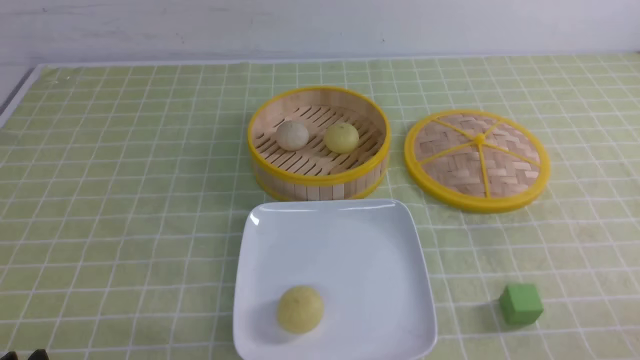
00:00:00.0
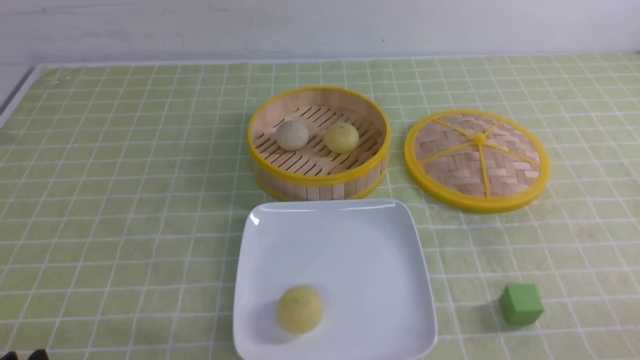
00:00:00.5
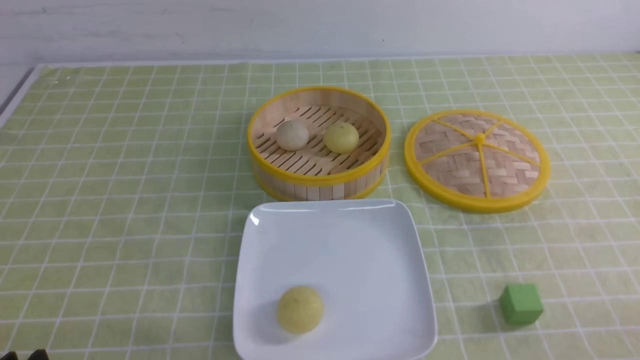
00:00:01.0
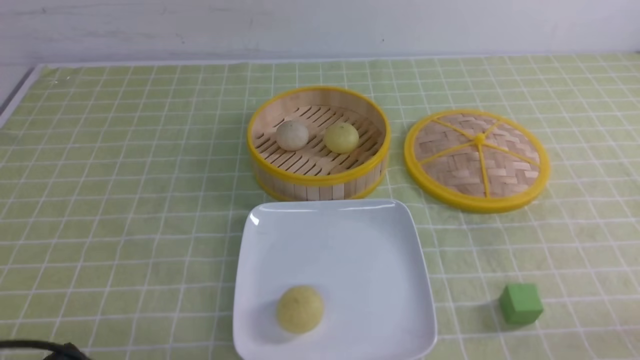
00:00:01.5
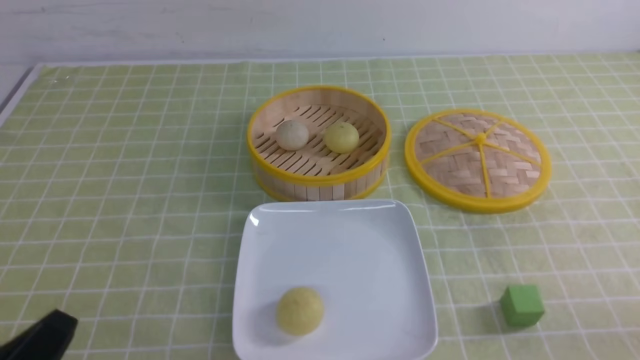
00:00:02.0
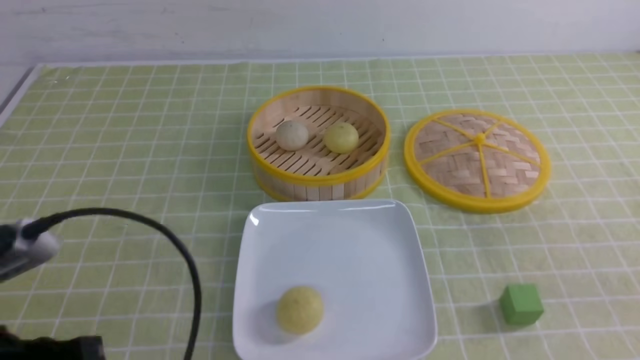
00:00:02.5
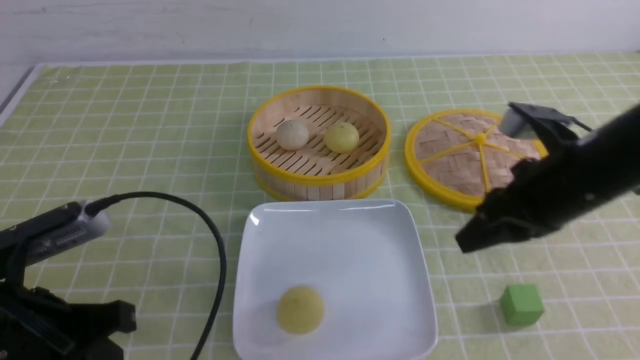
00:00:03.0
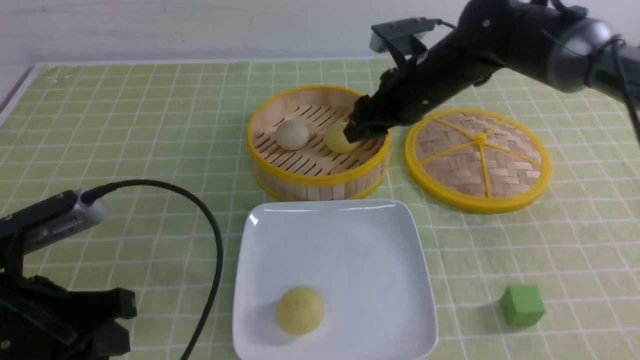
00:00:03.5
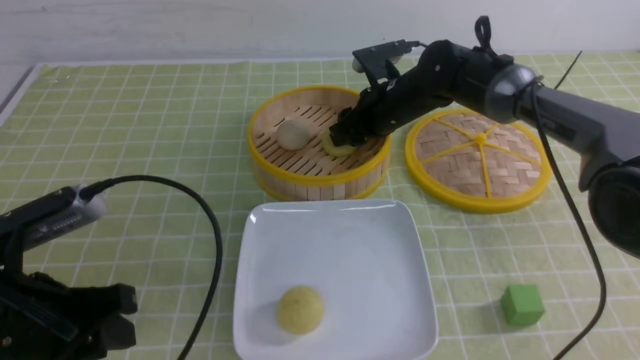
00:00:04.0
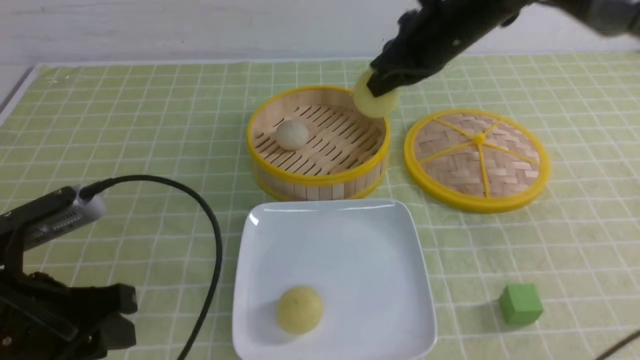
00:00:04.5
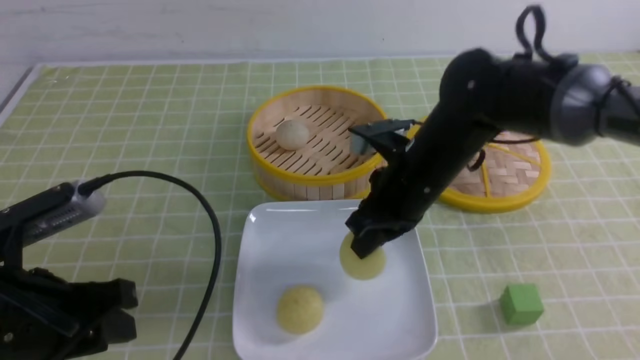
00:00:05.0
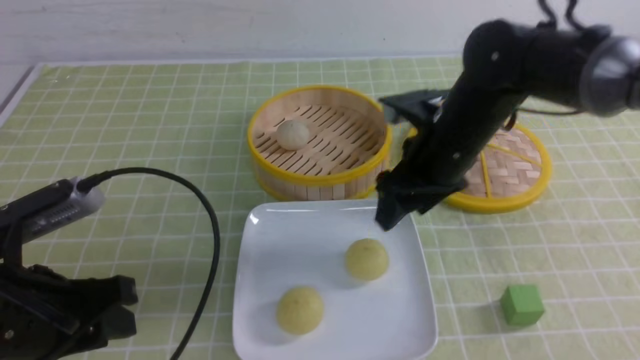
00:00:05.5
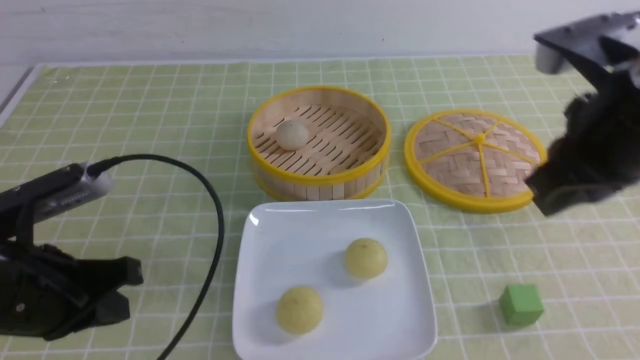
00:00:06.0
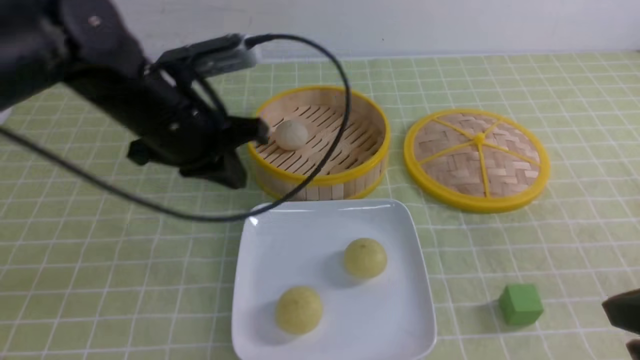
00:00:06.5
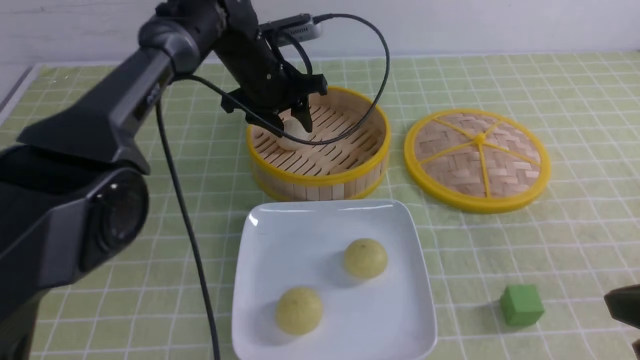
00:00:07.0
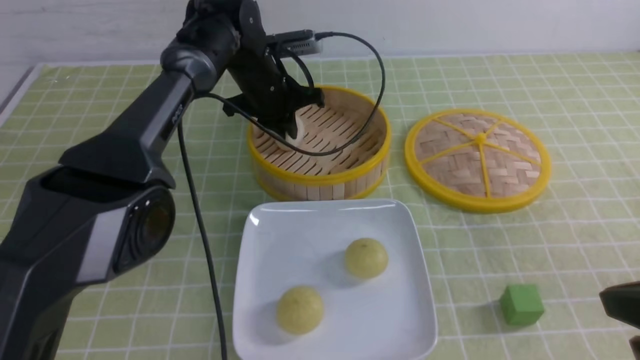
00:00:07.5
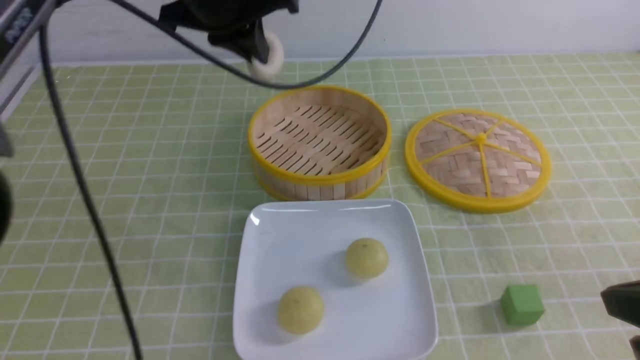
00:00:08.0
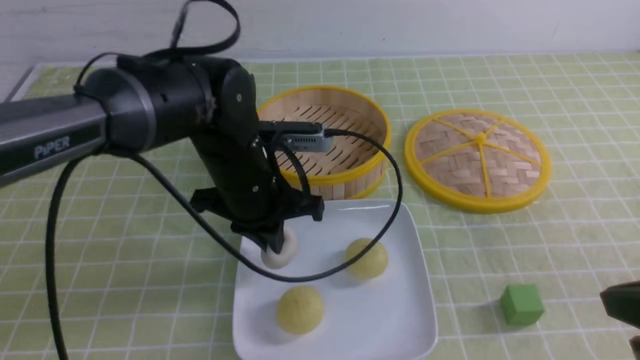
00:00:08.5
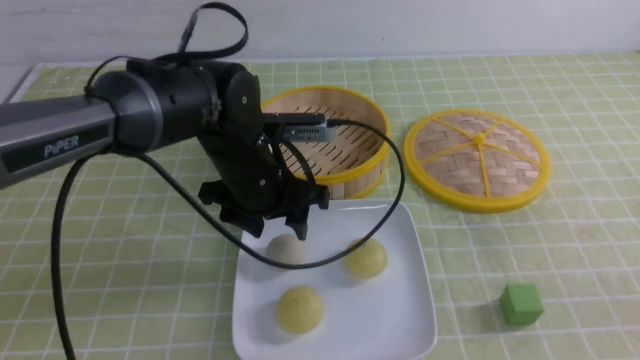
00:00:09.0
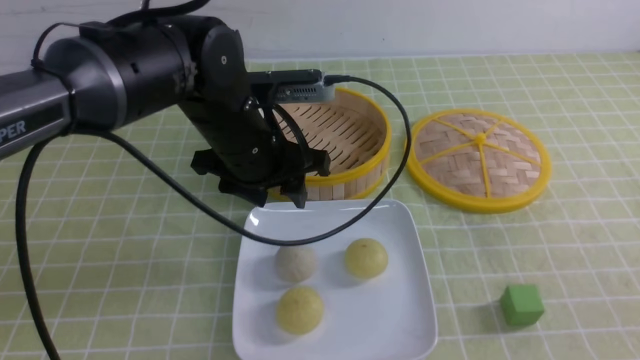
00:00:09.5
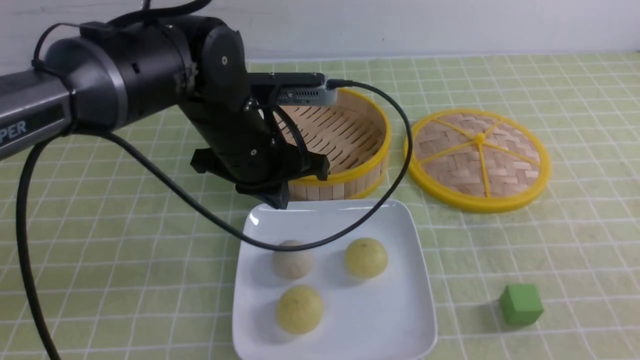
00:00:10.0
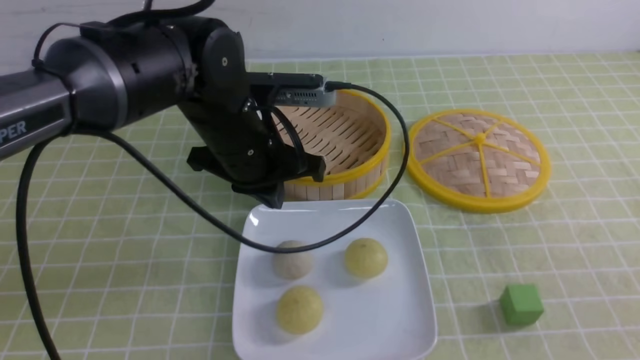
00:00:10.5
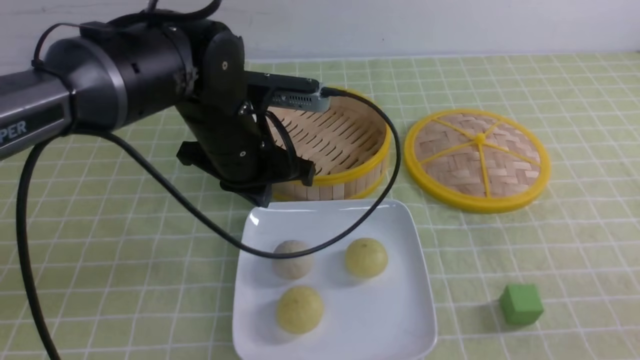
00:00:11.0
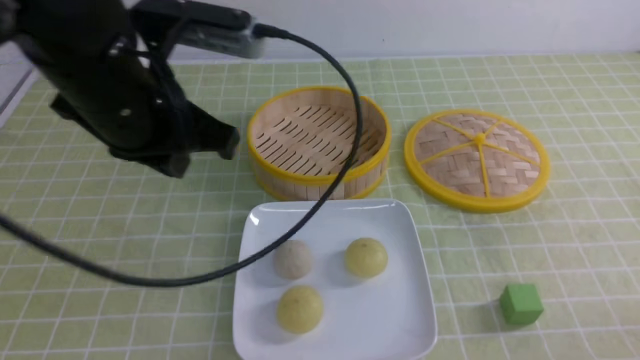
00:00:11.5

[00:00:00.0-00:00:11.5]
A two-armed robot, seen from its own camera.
Step, 00:00:00.0 to 00:00:04.0: use the right arm to grab the steamed stuffed bun that is closest to it.
Step, 00:00:04.5 to 00:00:05.0: use the right arm to put the steamed stuffed bun into the plate.
Step, 00:00:05.5 to 00:00:07.5: use the left arm to grab the steamed stuffed bun that is closest to it.
Step, 00:00:08.0 to 00:00:08.5: use the left arm to put the steamed stuffed bun into the plate.
00:00:00.0 to 00:00:02.0: The left gripper heads upward, covering some 5 cm.
00:00:02.0 to 00:00:04.0: The left gripper travels forward by some 10 cm; the right gripper heads forward and to the left, covering roughly 50 cm, and closes, then reopens.
00:00:04.0 to 00:00:06.0: The left gripper closes up, while the right gripper is displaced backward, upward and to the right by roughly 30 cm, and closes.
00:00:06.0 to 00:00:07.5: The right gripper goes approximately 15 cm backward, downward and to the right; the left gripper shifts about 35 cm forward and to the right, and opens, then closes again.
00:00:07.5 to 00:00:09.5: The left gripper is displaced backward by roughly 20 cm, and opens up. Meanwhile the right gripper goes approximately 10 cm backward and to the right.
00:00:09.5 to 00:00:11.5: The right gripper is displaced downward by roughly 10 cm. Meanwhile the left gripper heads upward, backward and to the left, covering approximately 15 cm, and closes.

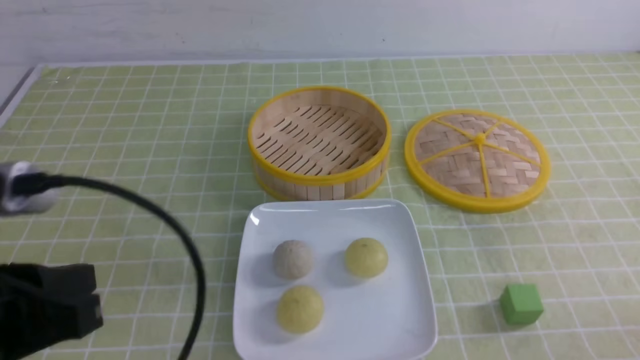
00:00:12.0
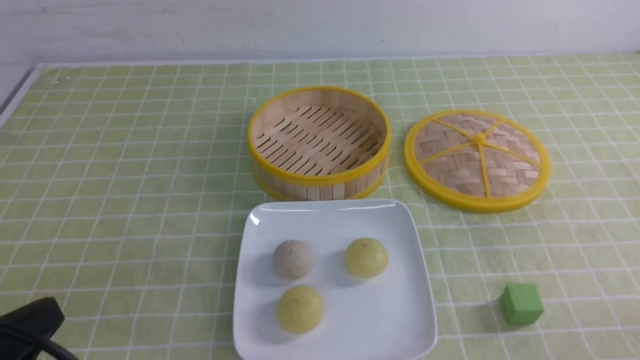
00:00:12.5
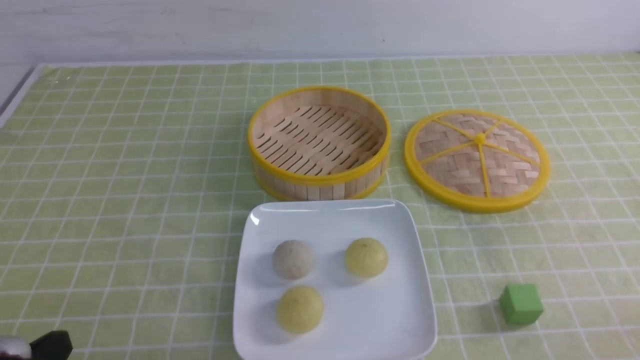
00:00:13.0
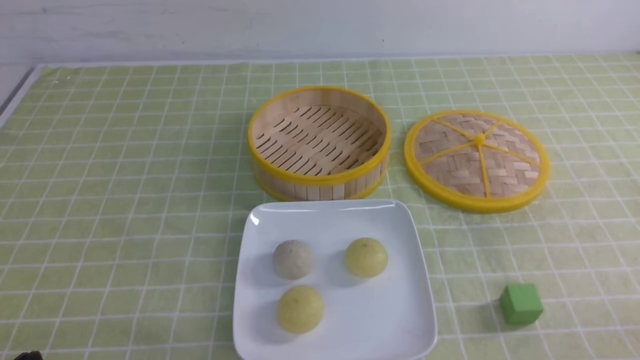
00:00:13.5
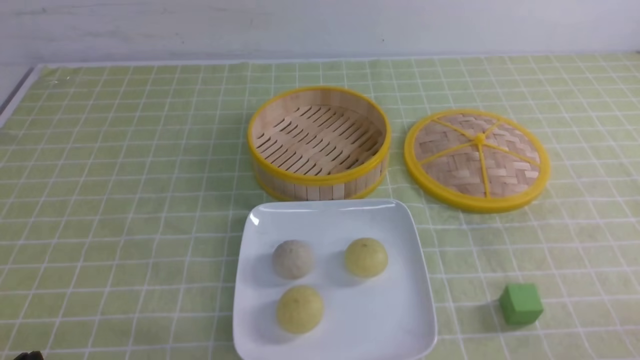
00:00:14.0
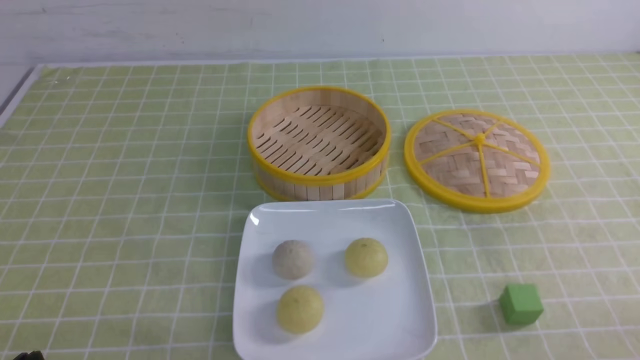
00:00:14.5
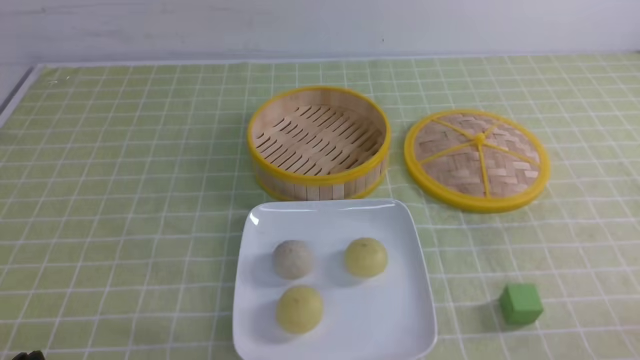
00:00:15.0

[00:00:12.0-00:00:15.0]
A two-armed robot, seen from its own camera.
00:00:12.0 to 00:00:13.5: The left gripper is displaced downward by some 15 cm.
00:00:13.5 to 00:00:15.0: Neither gripper changes place.
